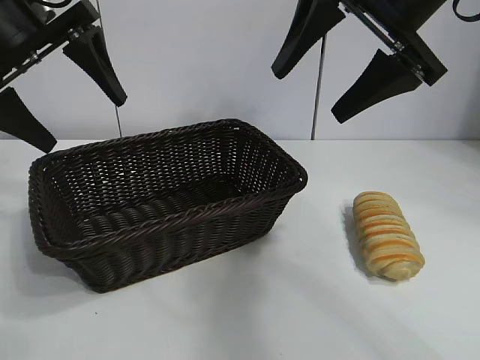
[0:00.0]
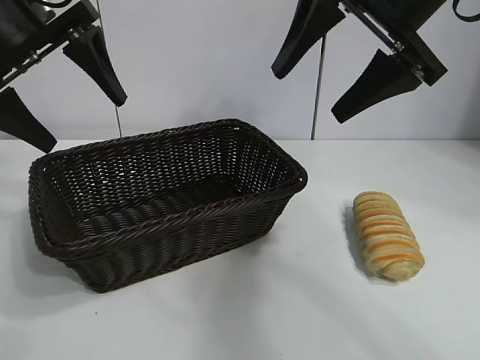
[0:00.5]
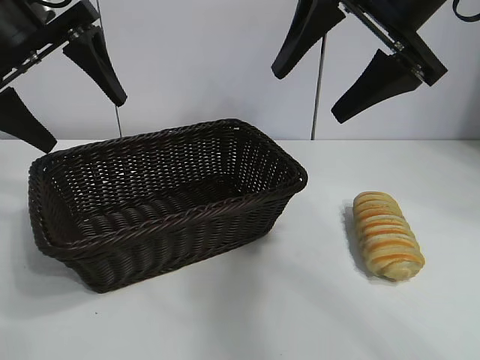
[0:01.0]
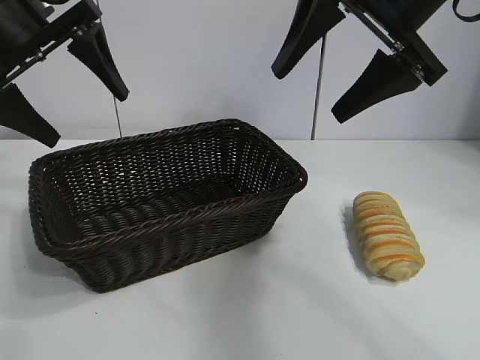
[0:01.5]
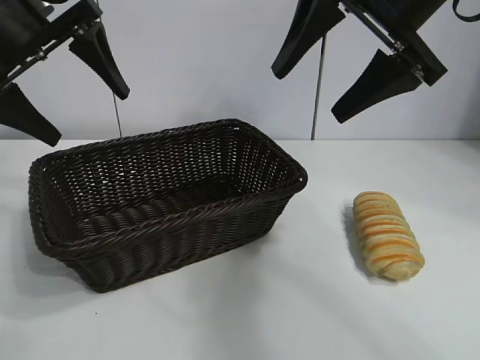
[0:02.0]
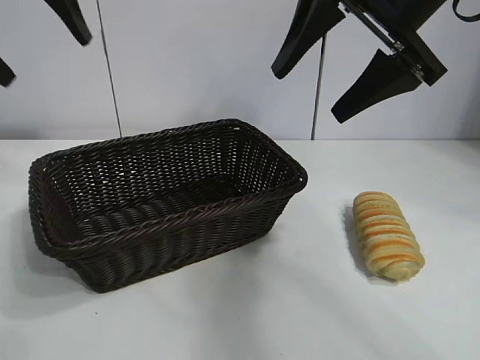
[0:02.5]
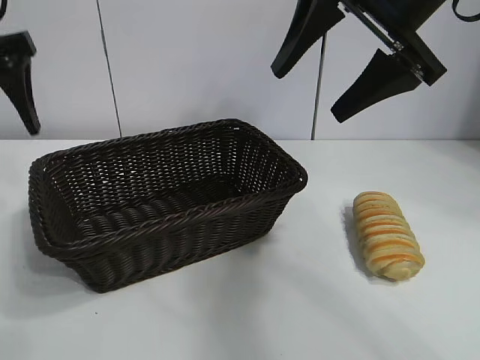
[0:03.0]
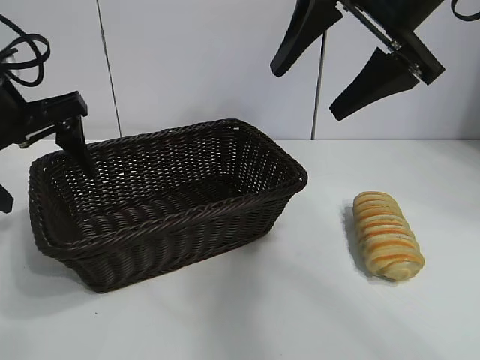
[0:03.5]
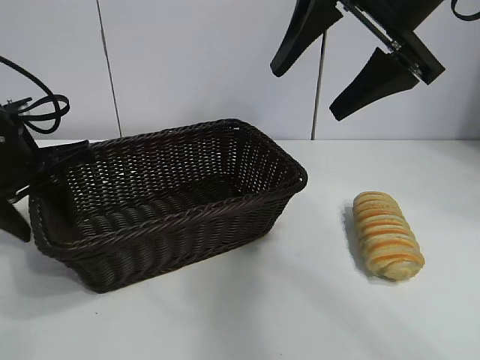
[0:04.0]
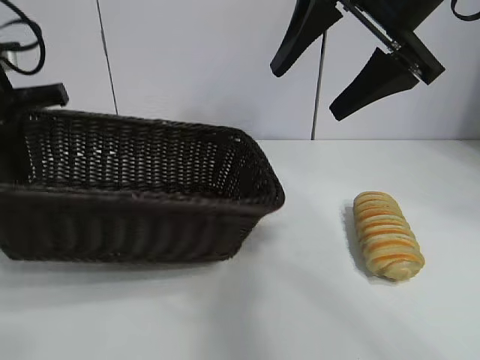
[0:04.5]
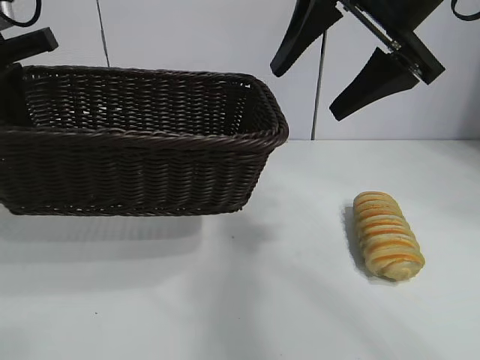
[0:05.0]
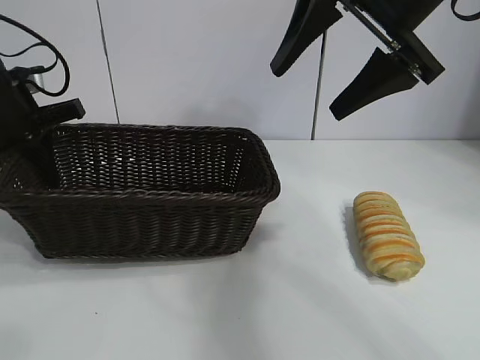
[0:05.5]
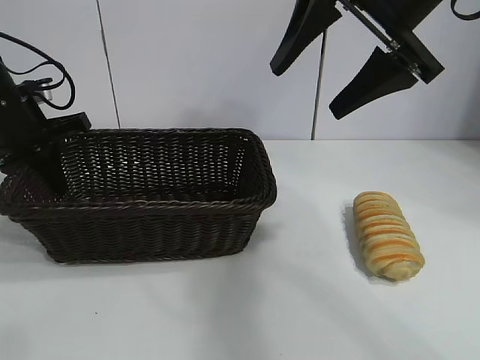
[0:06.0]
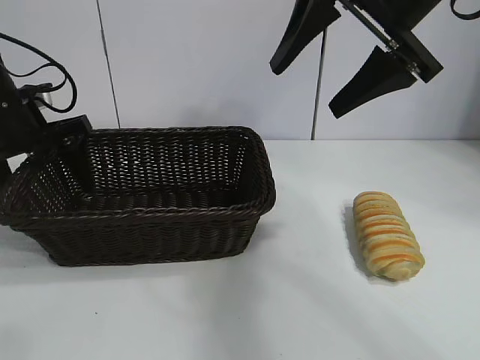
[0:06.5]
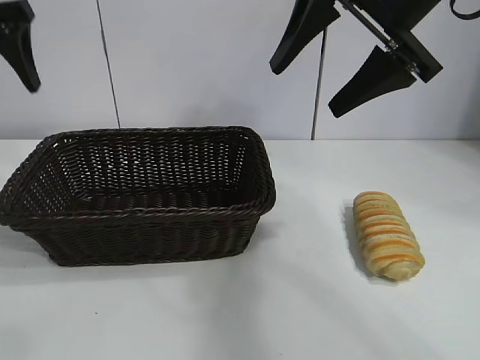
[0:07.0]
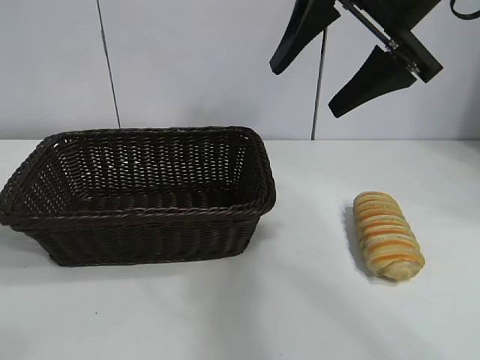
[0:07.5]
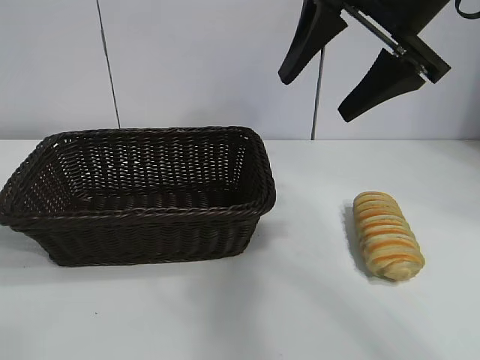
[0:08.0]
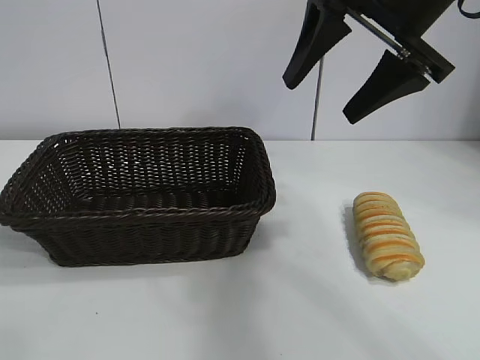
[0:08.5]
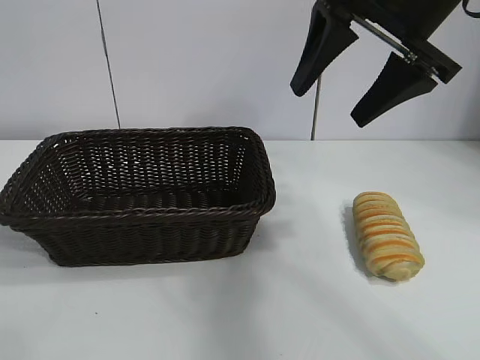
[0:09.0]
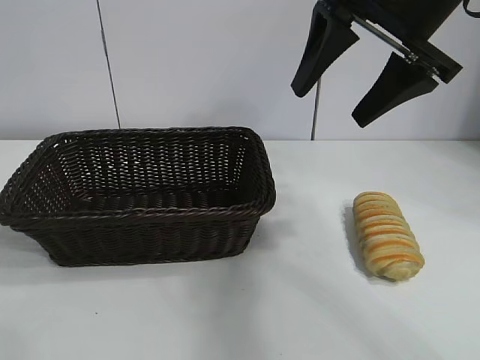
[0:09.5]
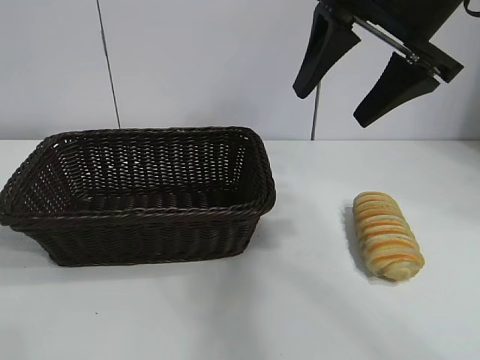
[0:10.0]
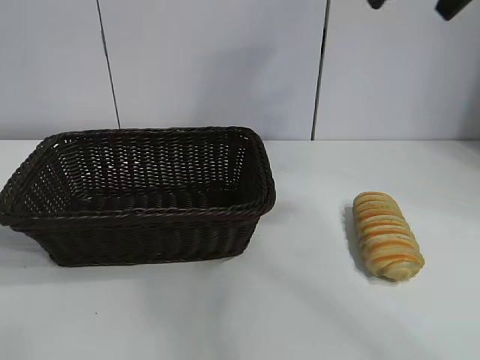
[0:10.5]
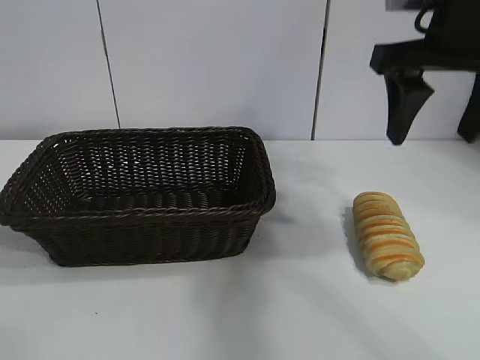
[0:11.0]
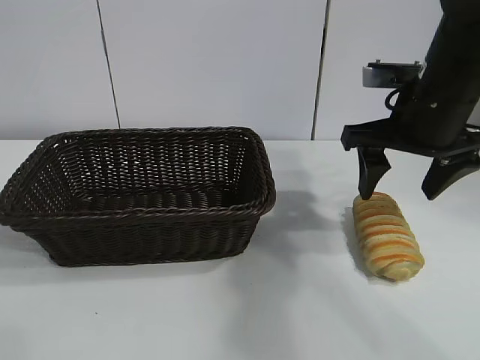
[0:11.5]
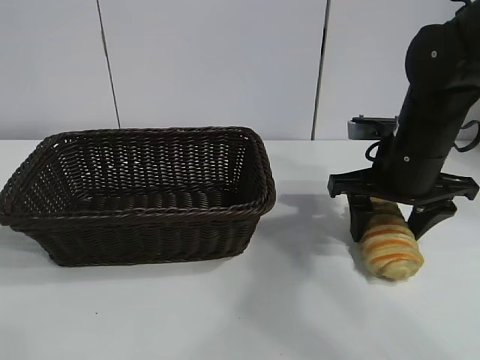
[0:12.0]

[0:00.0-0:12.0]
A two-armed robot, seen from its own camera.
Task of the whole recording: pick up the long bread and put it into the basket.
Step, 0:01.5 to 0:04.0: Grasp the basket with the left gripper.
Step, 0:04.5 to 0:06.5: Place the basket in the center of the table with the left gripper.

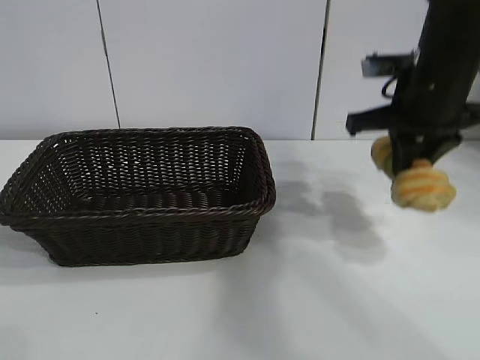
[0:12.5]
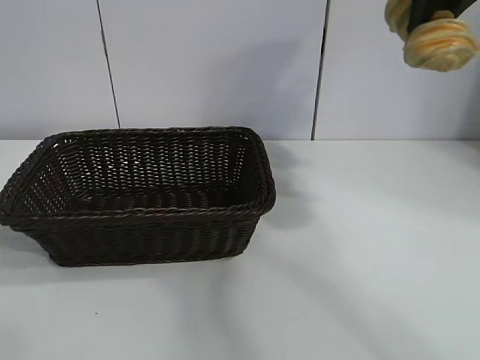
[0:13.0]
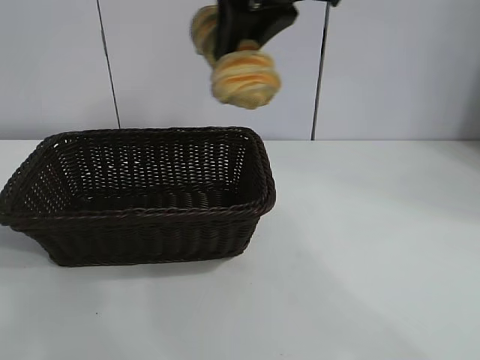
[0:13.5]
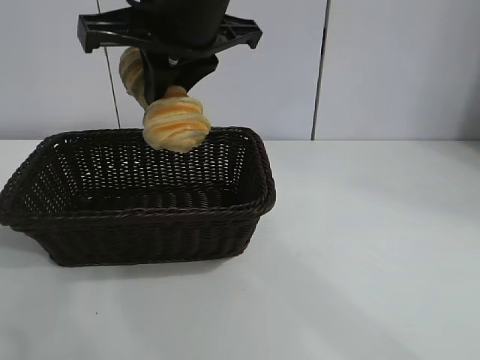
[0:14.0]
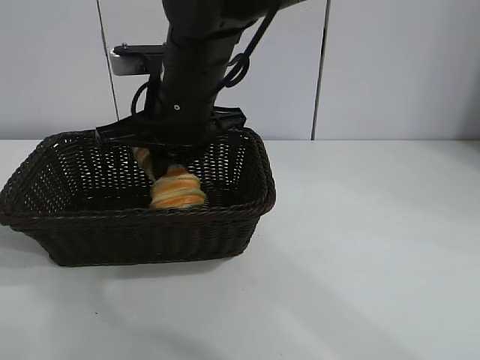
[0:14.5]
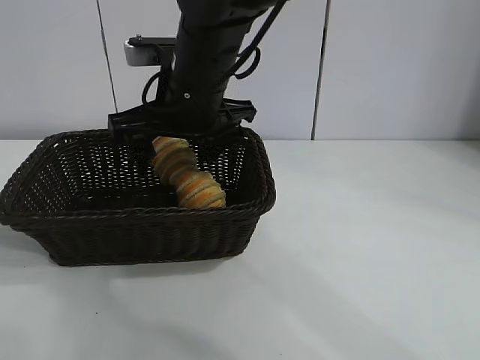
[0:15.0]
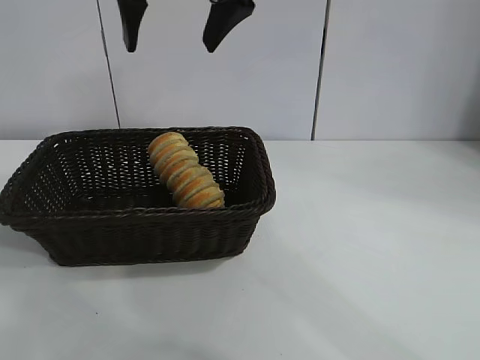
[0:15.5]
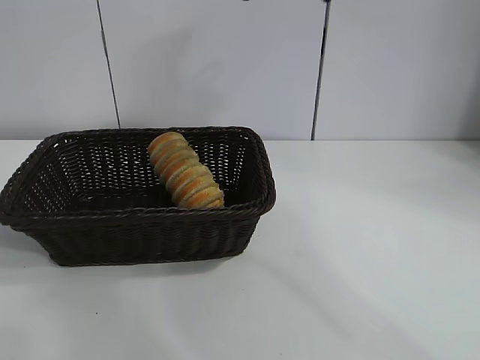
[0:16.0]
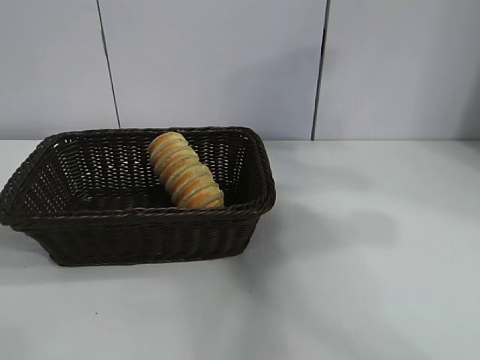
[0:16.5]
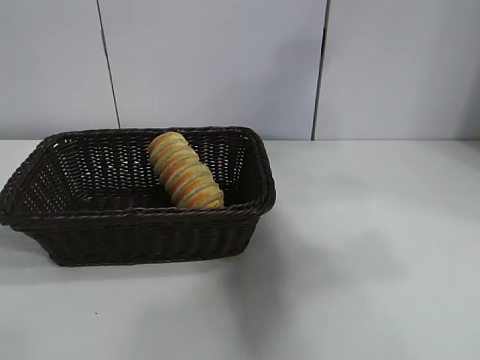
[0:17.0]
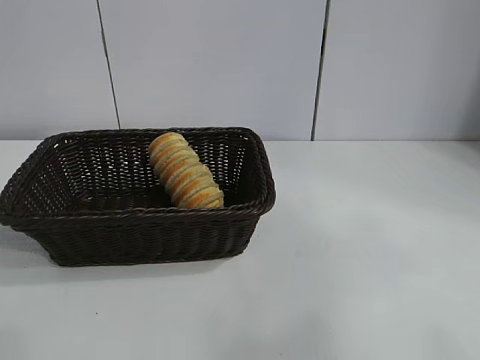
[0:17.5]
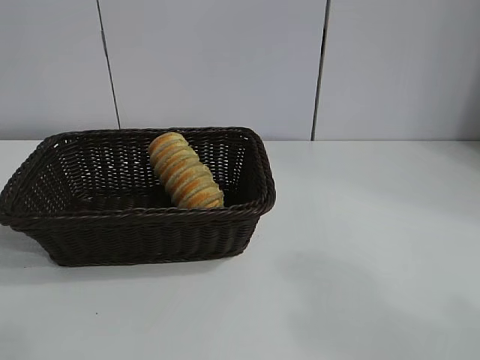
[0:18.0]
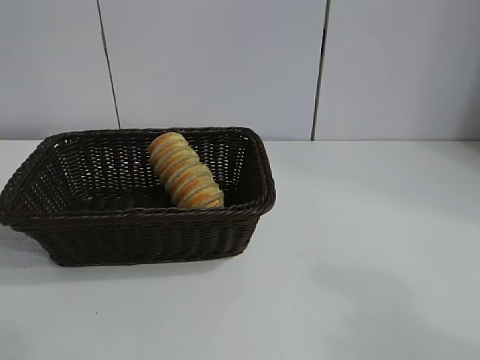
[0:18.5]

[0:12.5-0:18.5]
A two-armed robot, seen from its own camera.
Task of the whole recording: pick up the long bread and put it into the basket.
Step, 0:12.5 to 0:14.5: Place the long bread in the basket with right gripper.
